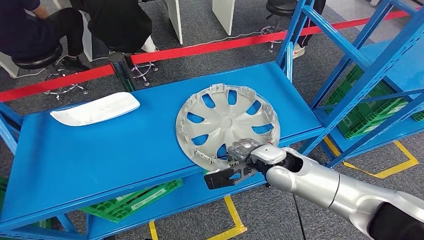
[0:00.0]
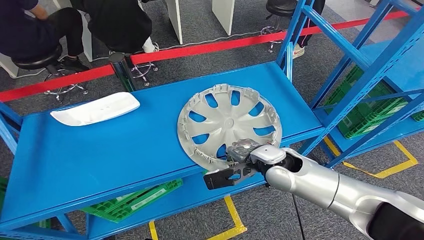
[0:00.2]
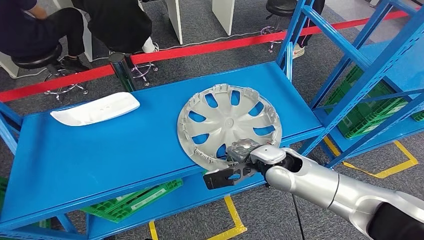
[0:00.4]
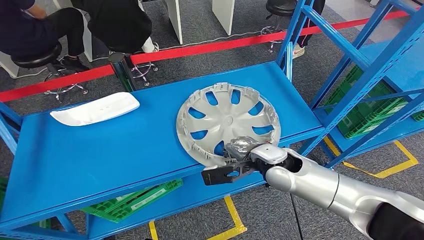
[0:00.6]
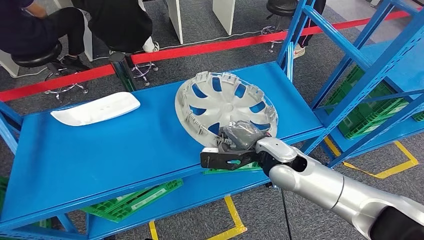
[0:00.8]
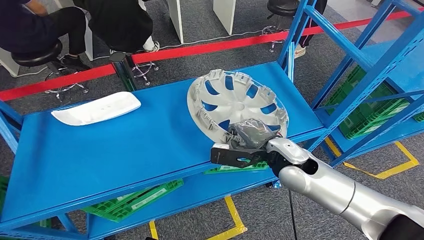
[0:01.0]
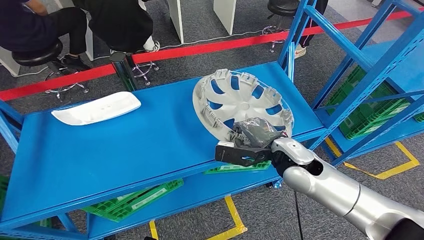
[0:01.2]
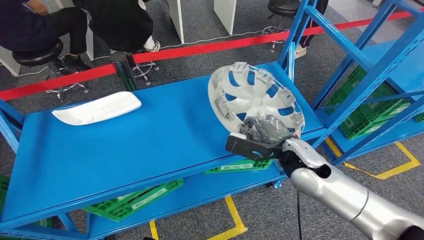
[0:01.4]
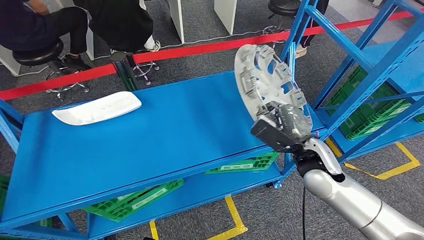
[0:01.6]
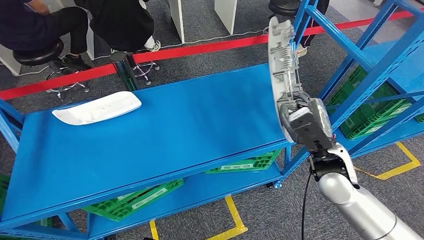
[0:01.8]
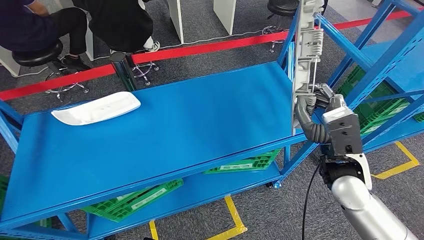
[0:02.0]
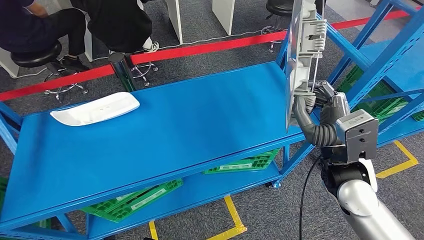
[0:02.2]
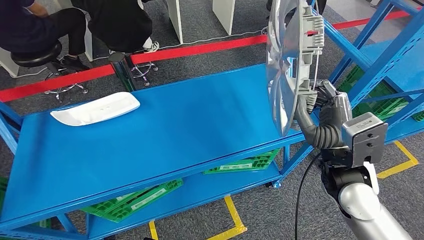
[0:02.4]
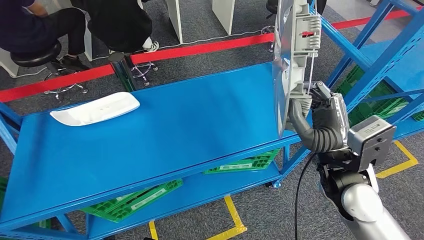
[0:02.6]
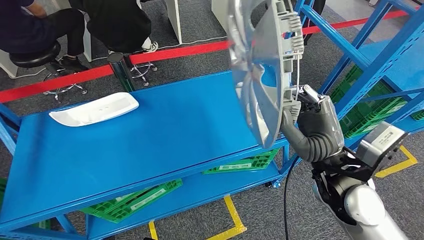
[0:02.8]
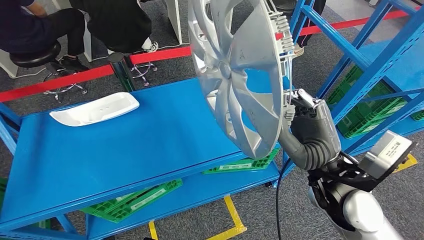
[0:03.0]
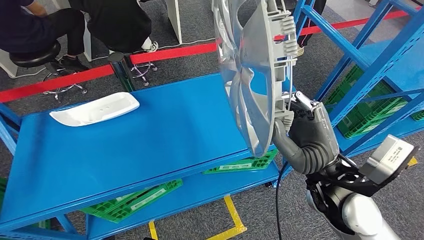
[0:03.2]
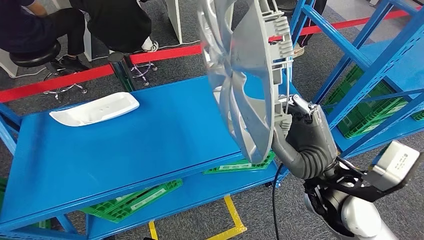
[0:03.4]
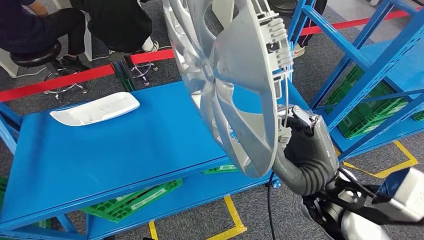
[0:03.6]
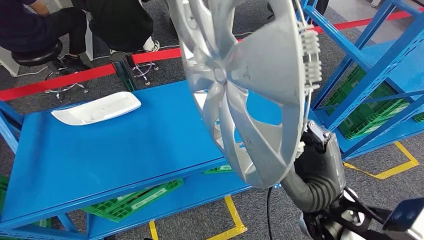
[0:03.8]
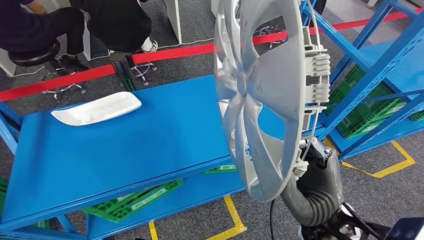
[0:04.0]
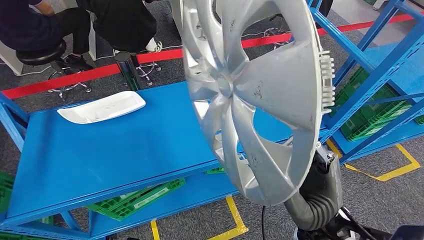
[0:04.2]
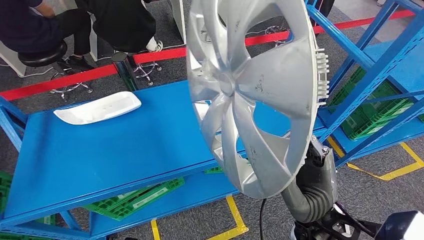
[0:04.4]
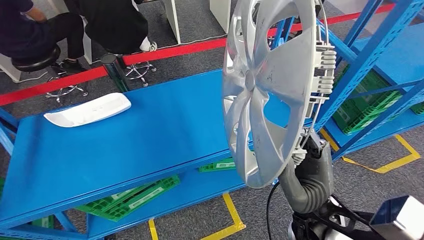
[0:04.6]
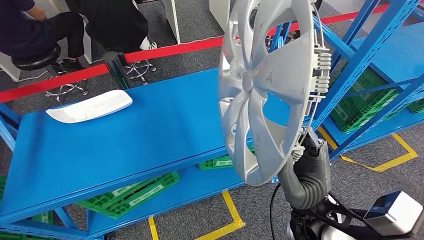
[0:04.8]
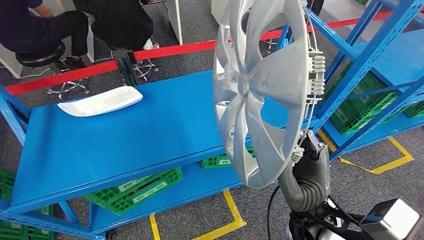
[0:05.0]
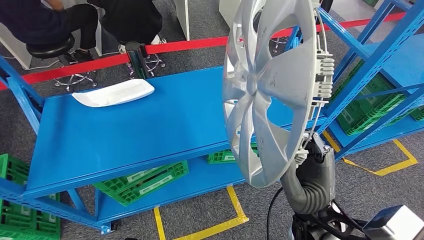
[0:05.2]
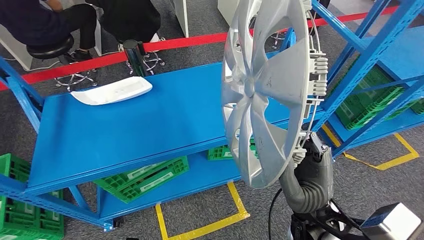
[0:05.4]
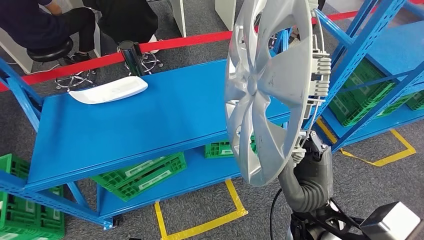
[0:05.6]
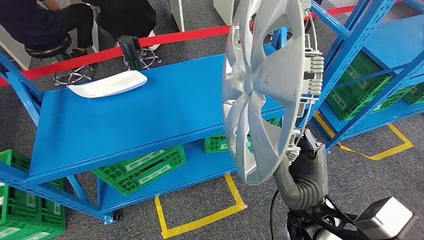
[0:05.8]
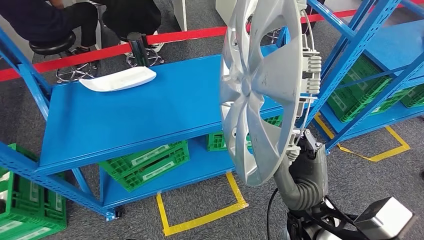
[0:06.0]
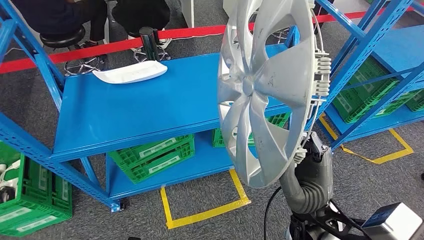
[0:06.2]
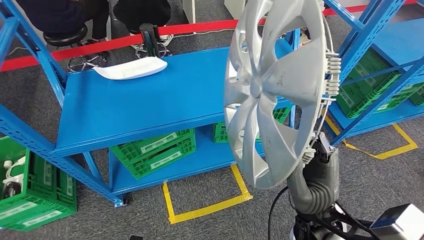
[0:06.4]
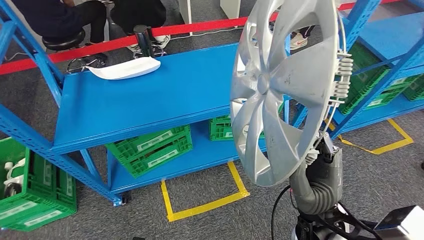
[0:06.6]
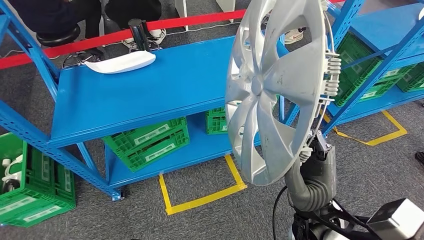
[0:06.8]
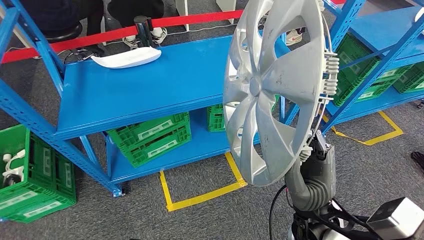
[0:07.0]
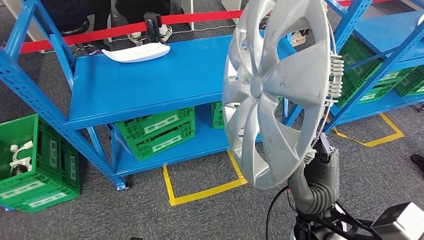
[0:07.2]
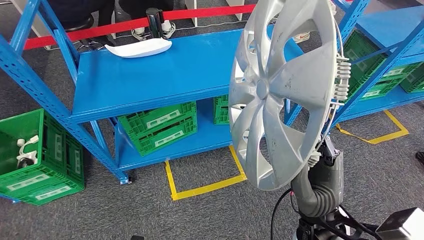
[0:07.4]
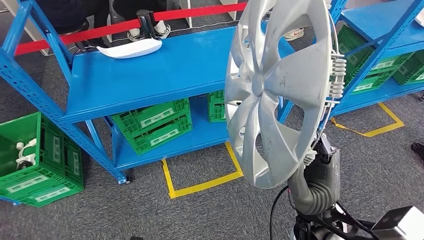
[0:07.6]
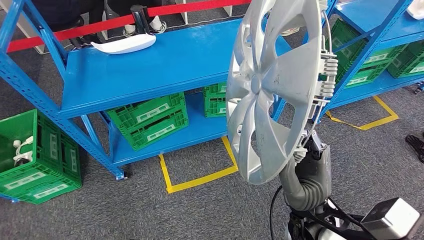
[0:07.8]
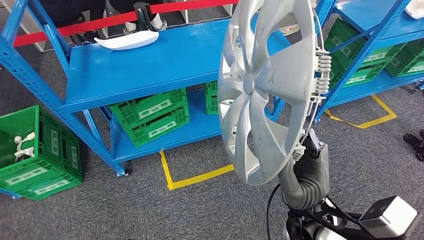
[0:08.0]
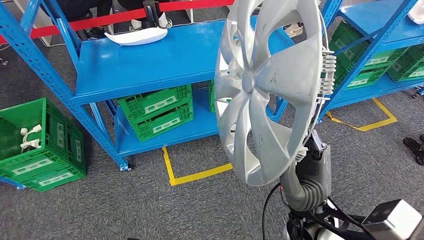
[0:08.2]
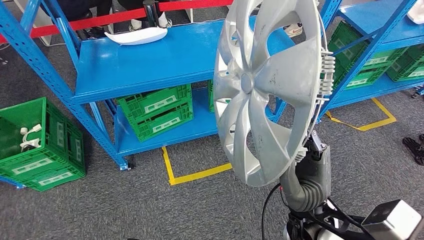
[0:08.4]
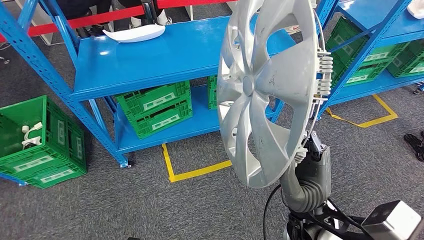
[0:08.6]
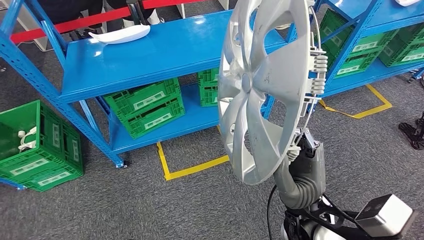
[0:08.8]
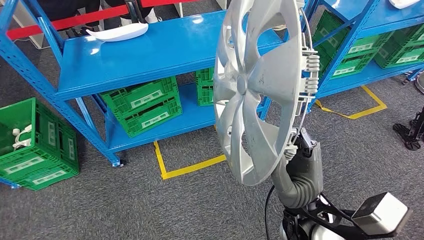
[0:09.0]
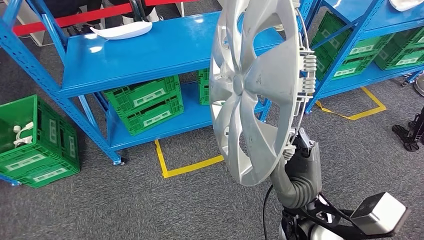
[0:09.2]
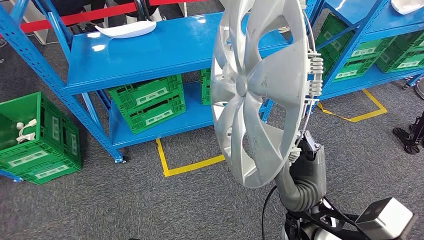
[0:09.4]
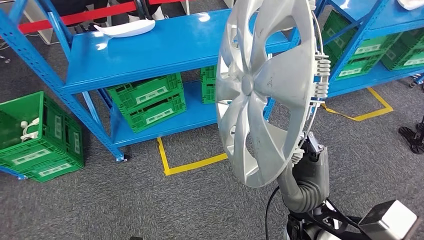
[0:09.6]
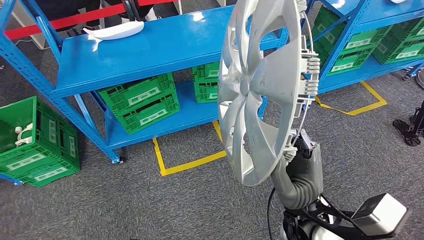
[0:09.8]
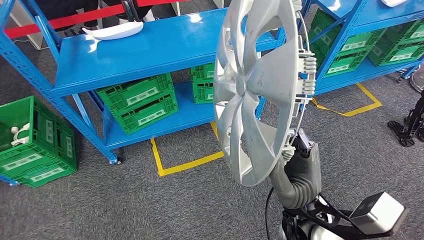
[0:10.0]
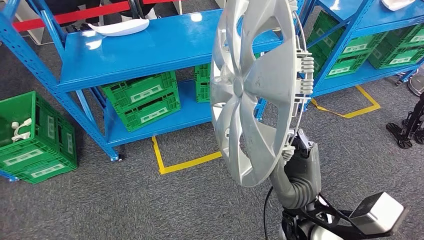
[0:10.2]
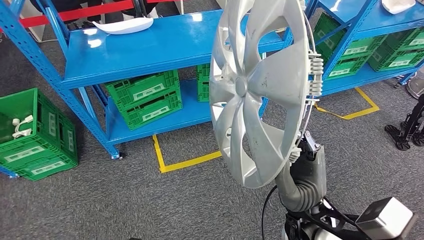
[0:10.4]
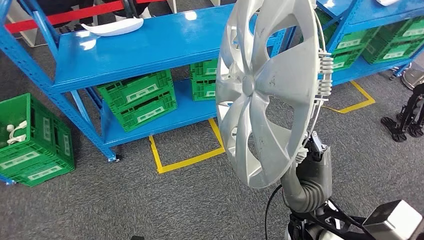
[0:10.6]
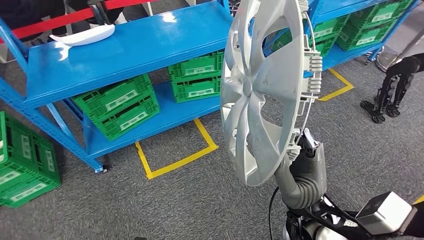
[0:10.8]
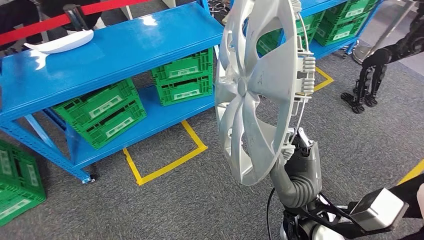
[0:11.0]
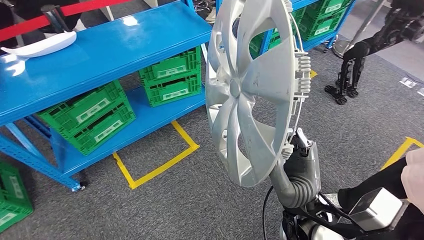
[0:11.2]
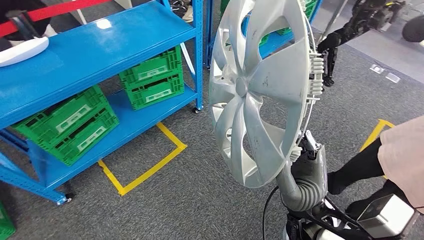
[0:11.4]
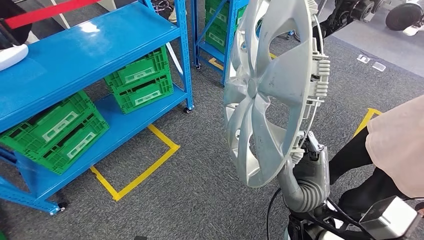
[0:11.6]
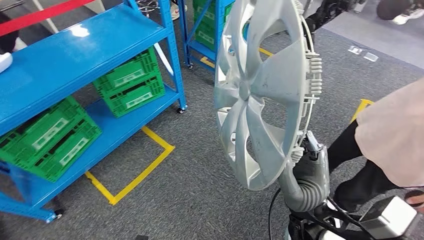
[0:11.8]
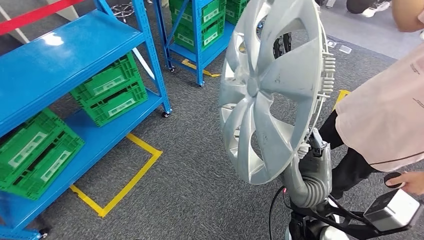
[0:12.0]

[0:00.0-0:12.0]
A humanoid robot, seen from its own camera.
Step, 0:00.0 to 0:03.0: Pick up the small component from the shelf.

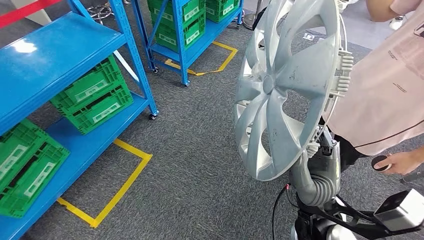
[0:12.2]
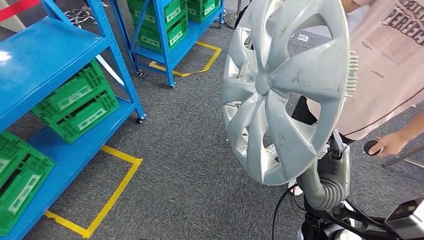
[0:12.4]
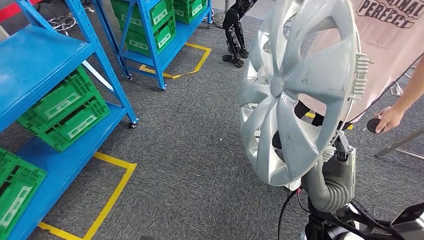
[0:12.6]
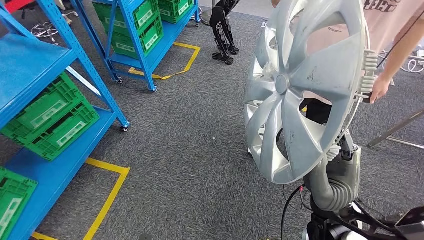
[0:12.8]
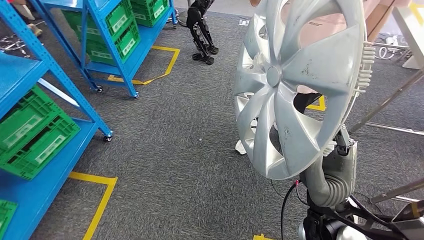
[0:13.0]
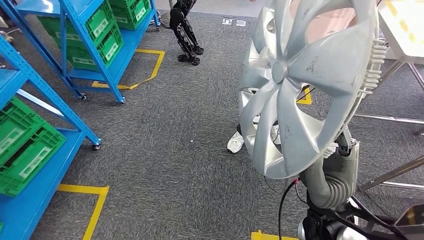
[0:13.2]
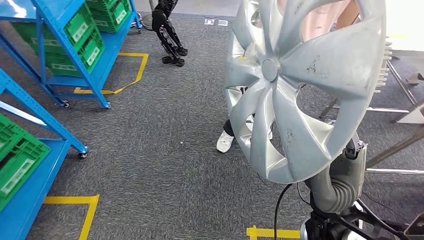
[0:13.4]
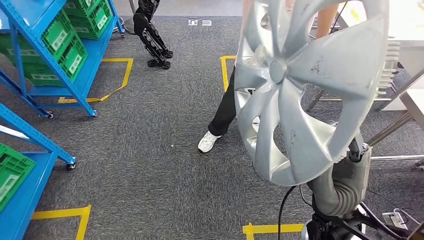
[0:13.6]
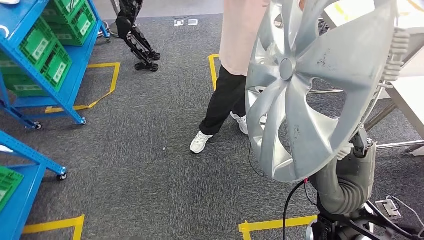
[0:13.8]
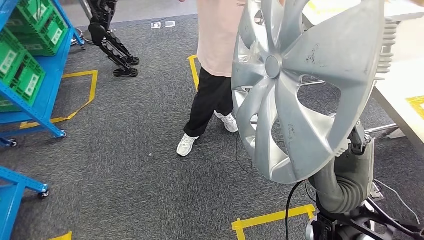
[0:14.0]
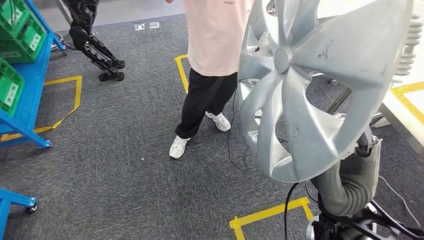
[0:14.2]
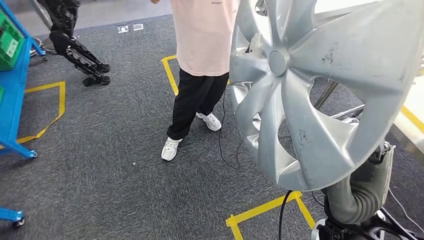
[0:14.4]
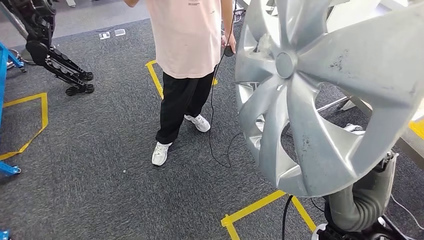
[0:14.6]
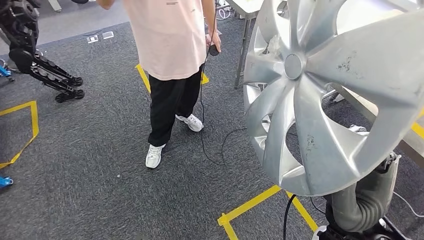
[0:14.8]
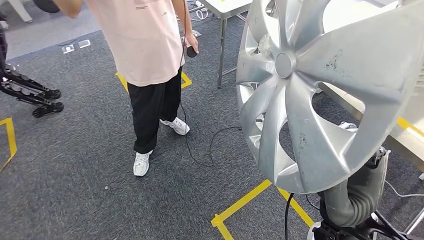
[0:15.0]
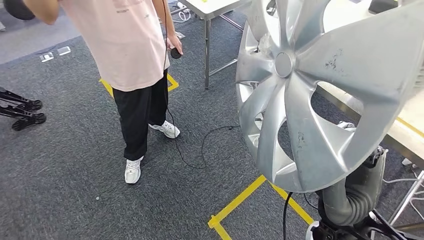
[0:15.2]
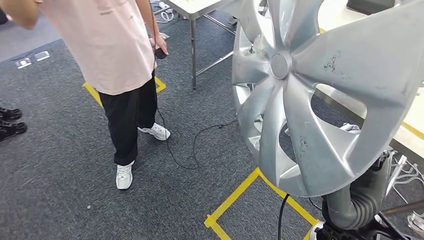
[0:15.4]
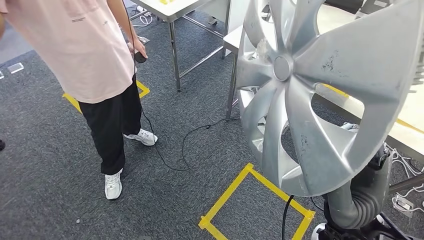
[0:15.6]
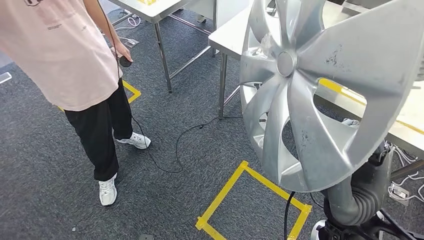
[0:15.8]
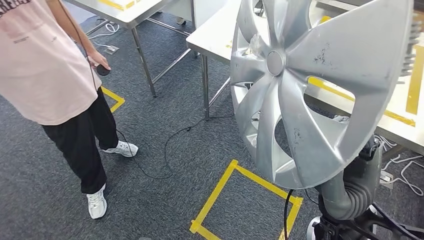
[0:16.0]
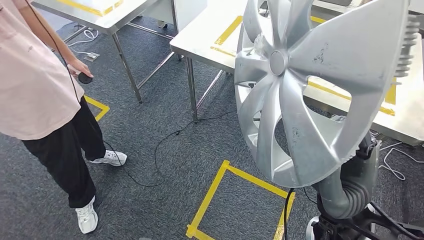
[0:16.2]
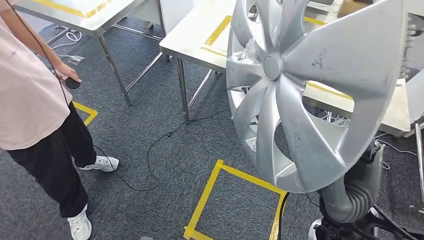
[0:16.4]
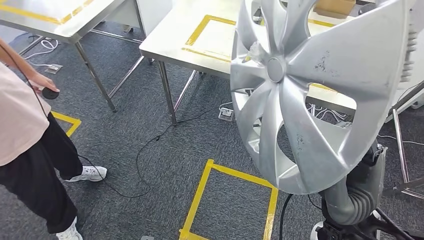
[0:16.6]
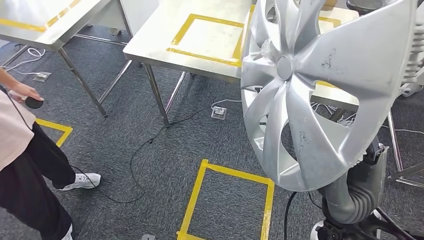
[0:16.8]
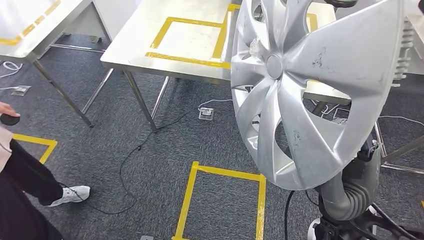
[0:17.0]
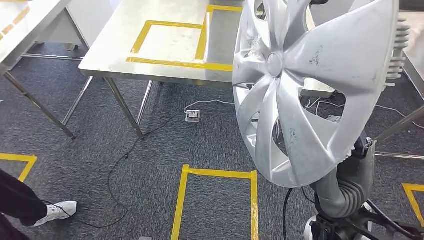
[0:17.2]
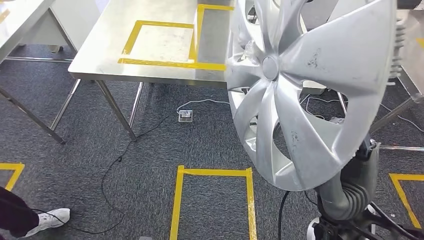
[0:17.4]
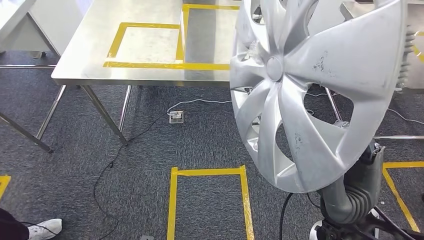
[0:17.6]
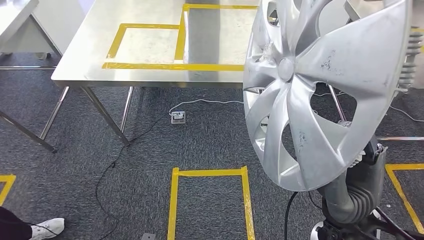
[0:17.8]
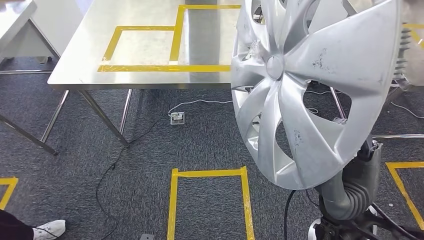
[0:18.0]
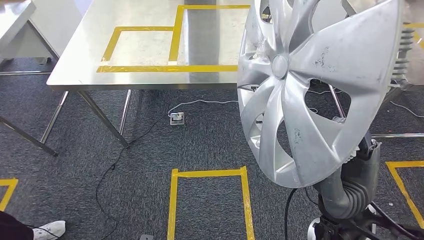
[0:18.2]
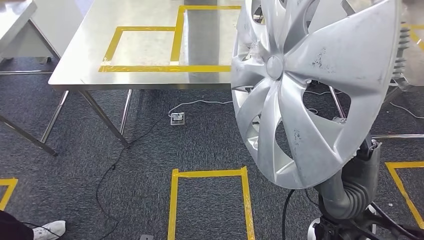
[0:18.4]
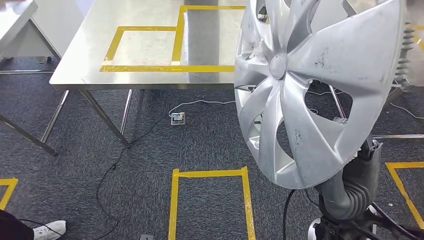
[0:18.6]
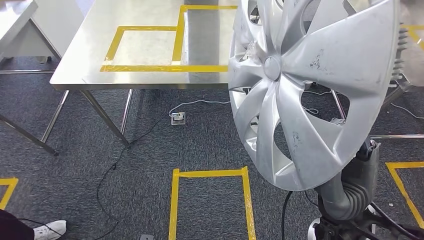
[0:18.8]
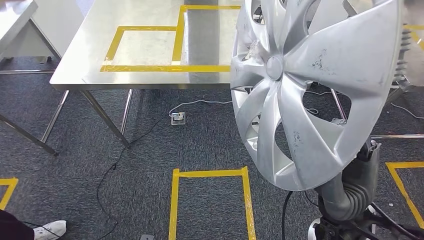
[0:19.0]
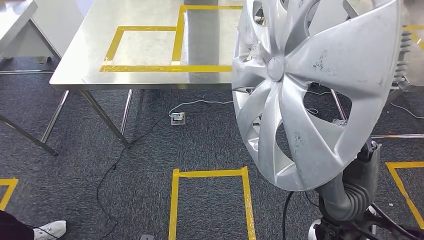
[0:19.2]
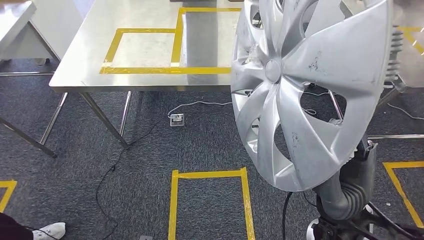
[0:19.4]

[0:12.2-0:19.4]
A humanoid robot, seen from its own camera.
0:18.0 to 0:19.4: The two hands keep their place.
